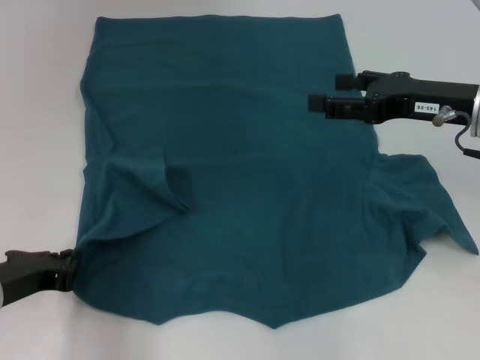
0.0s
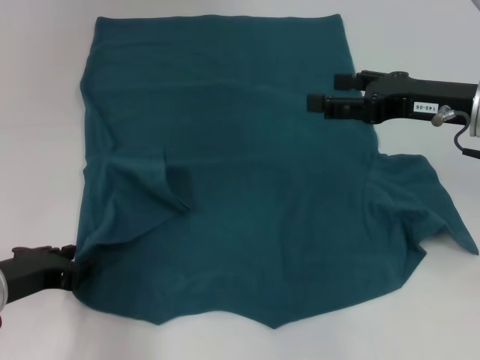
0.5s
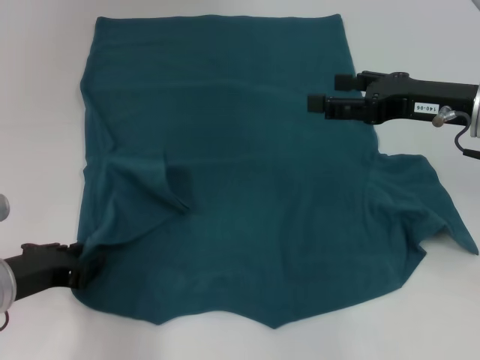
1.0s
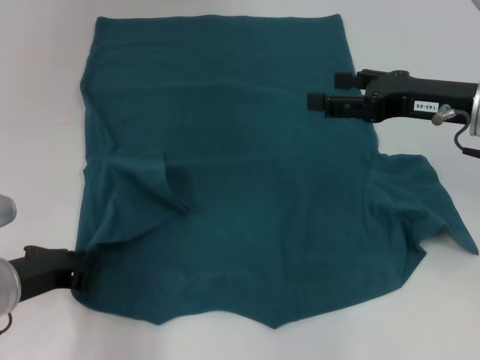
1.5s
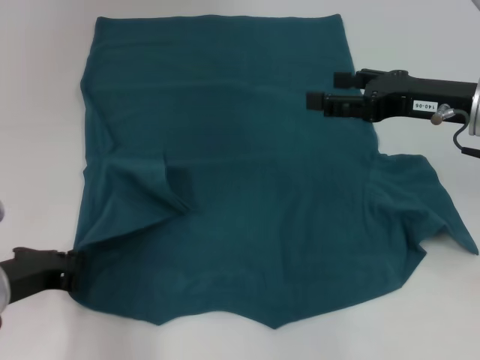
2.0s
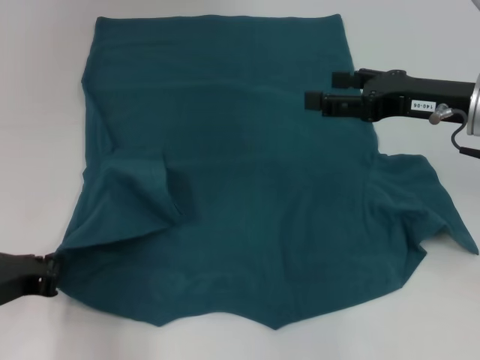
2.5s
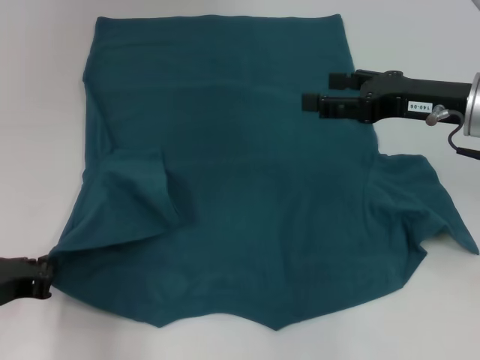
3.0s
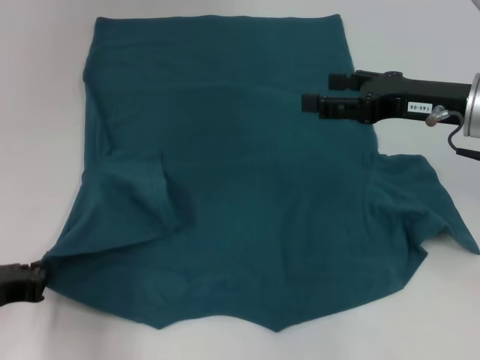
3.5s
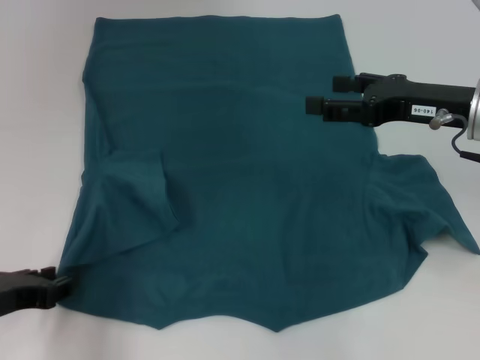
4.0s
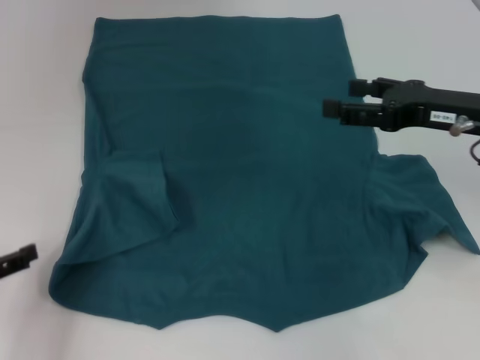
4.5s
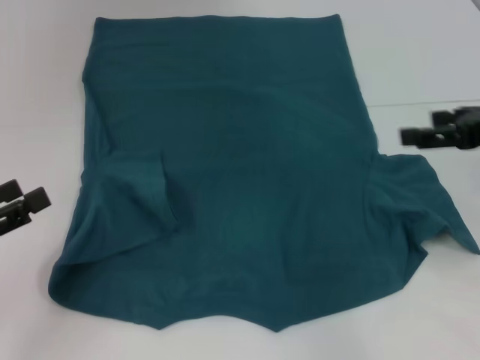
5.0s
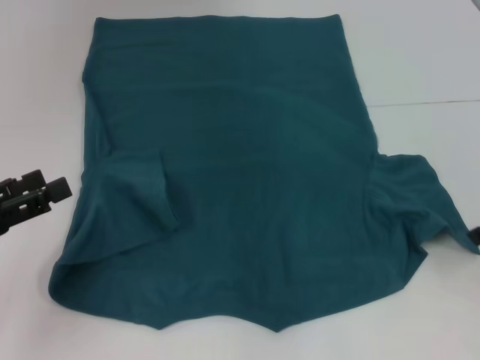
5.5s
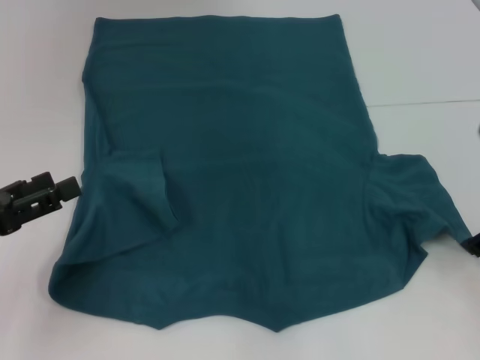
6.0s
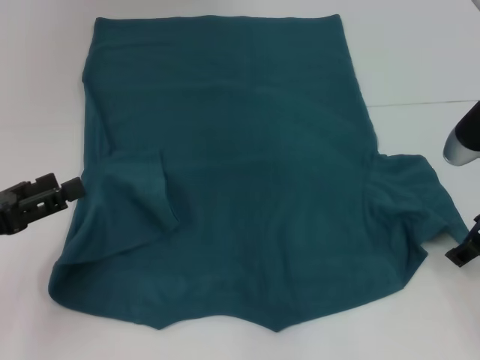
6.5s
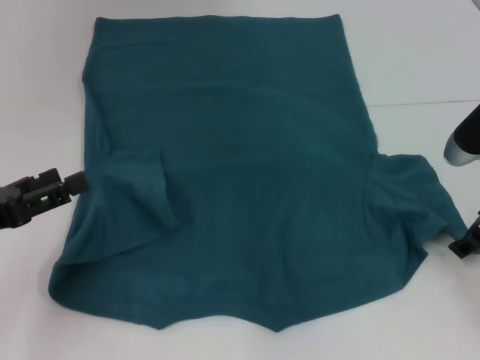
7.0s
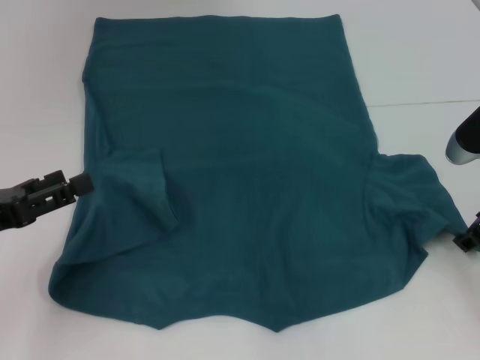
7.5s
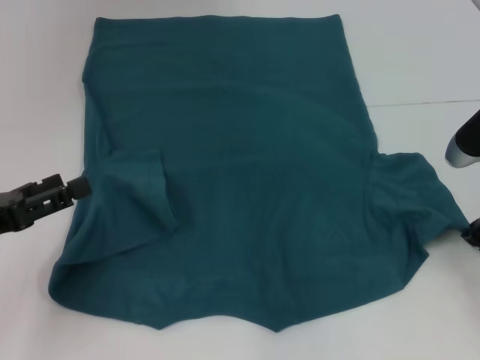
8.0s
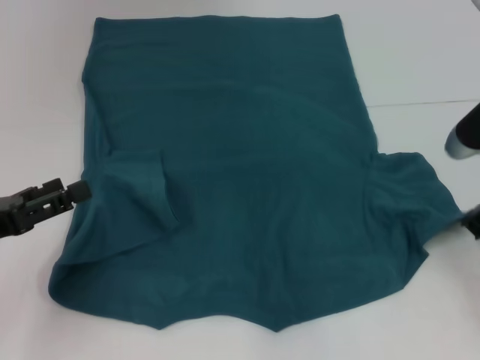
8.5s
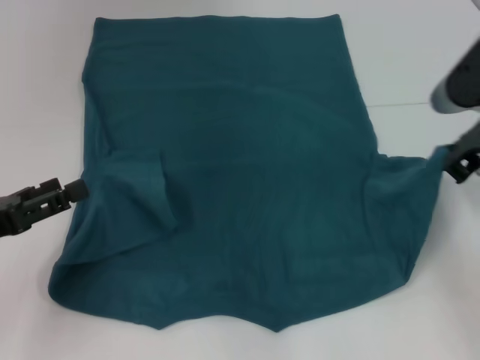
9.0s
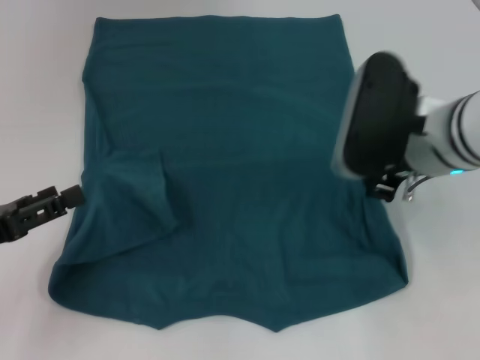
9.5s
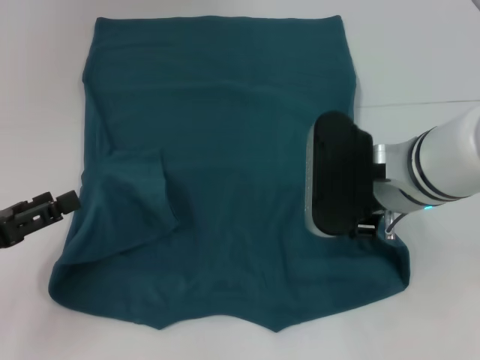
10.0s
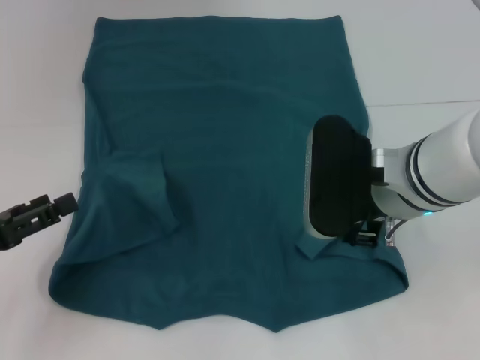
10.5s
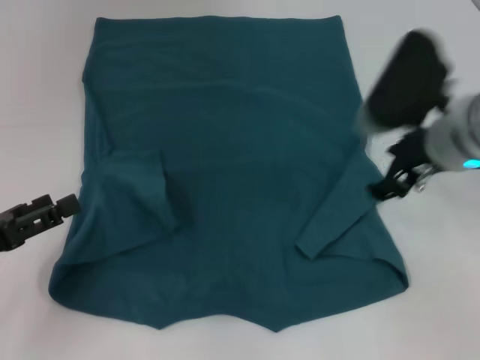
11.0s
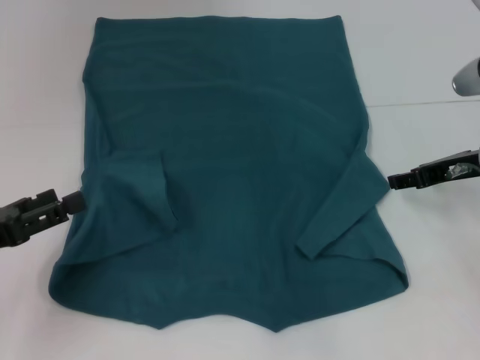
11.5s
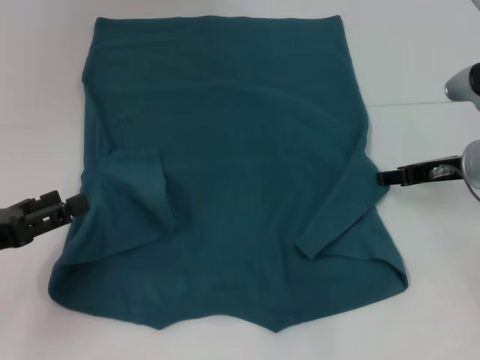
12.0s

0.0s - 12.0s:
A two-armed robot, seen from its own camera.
Step, 0.0s - 4.0s: Fold the bottom left sleeve with your left hand.
0.0s - 4.0s: The grippers stay close to where they were, moving slightly.
4.0s - 6.0s: The left gripper moves approximately 5 cm, and opens up, while the right gripper shifts by roughly 5 cm.
6.0s - 8.0s: The right gripper heads downward, covering some 5 cm, and closes.
8.0s - 10.0s: The right gripper shifts roughly 15 cm to the left.
10.0s - 12.0s: The right gripper moves to the right, downward and forward, some 15 cm, and opens its fingers.

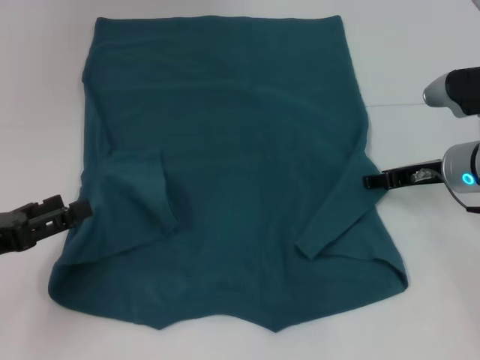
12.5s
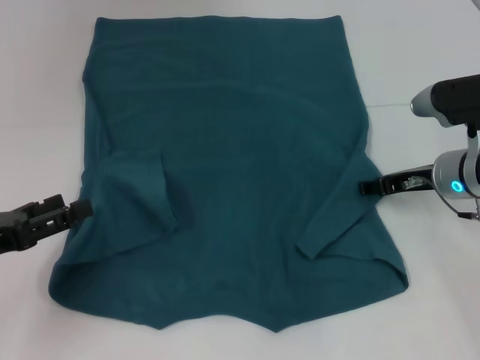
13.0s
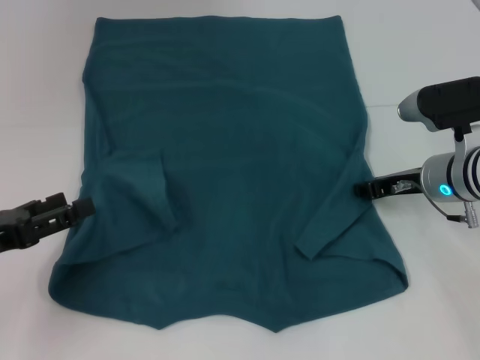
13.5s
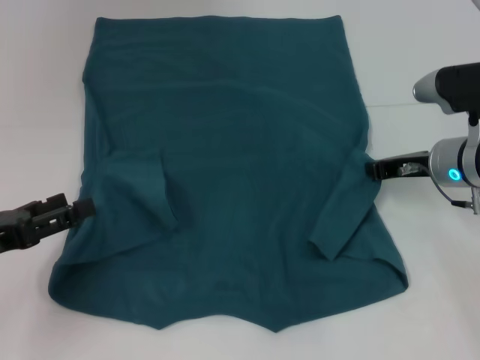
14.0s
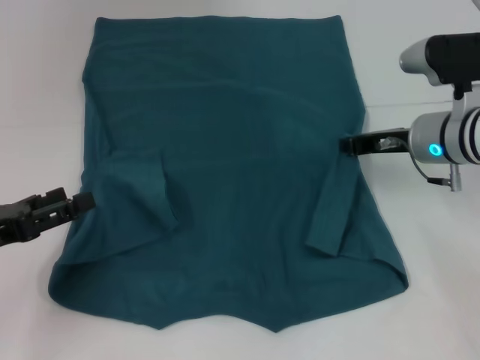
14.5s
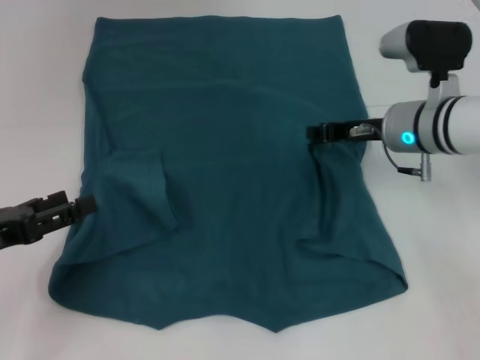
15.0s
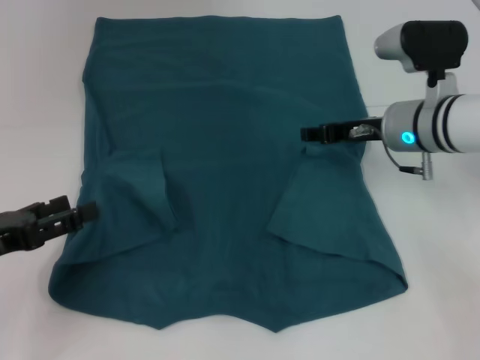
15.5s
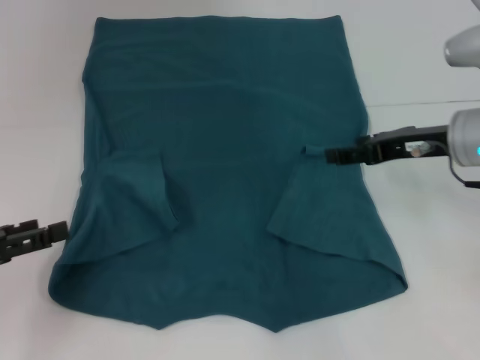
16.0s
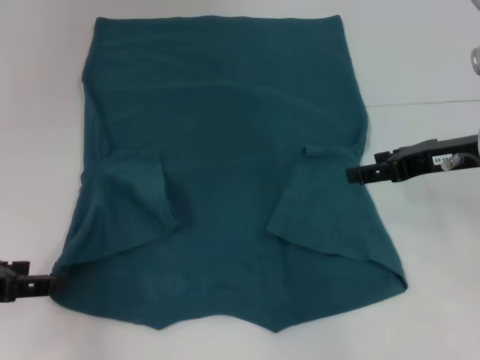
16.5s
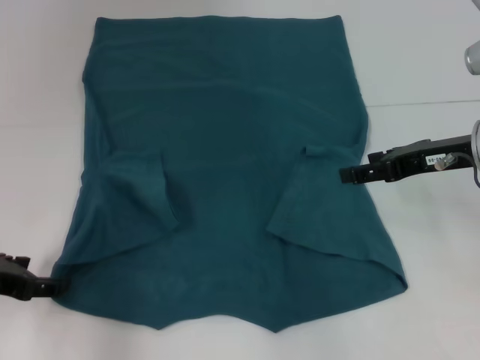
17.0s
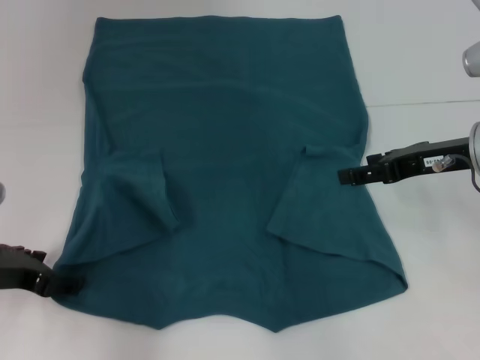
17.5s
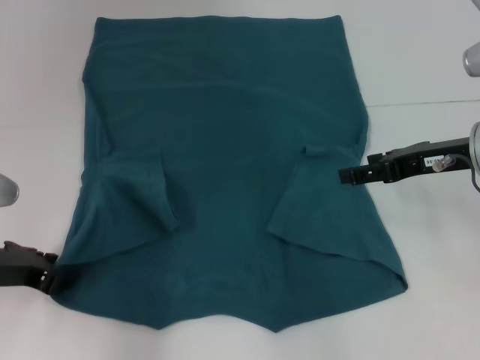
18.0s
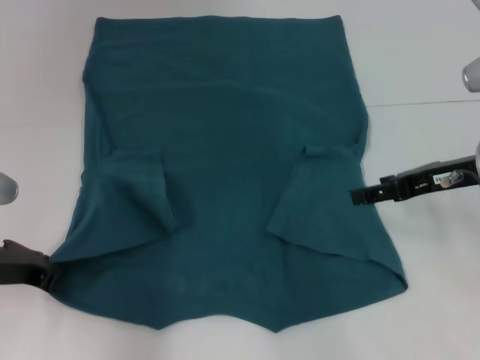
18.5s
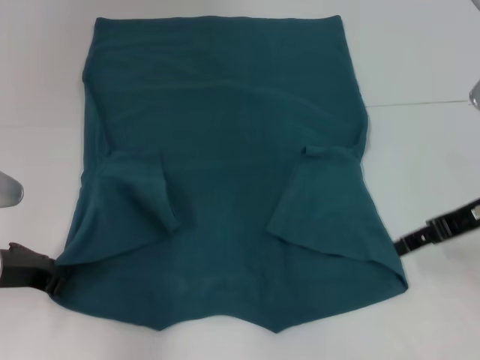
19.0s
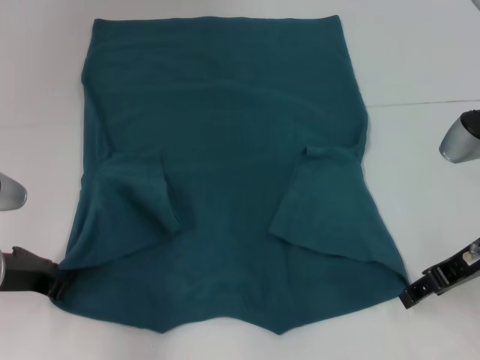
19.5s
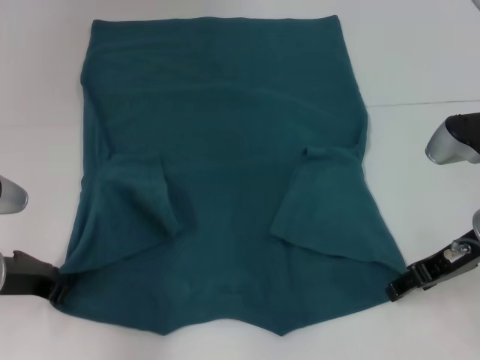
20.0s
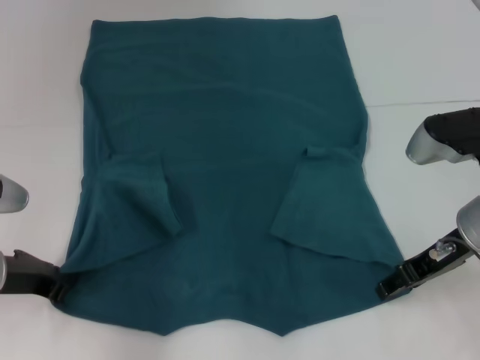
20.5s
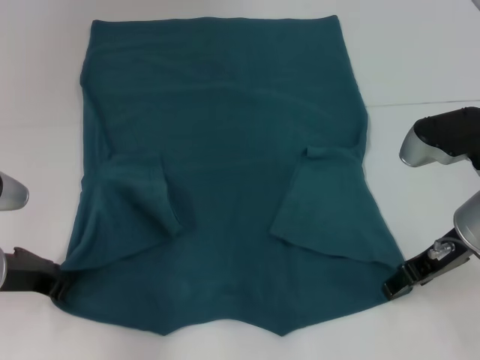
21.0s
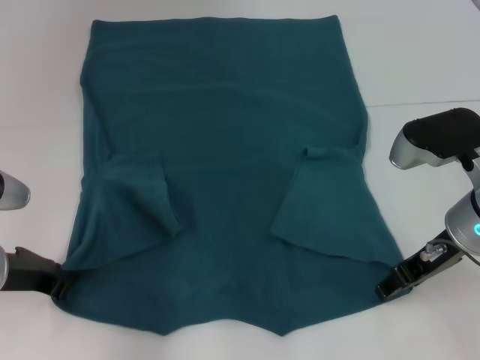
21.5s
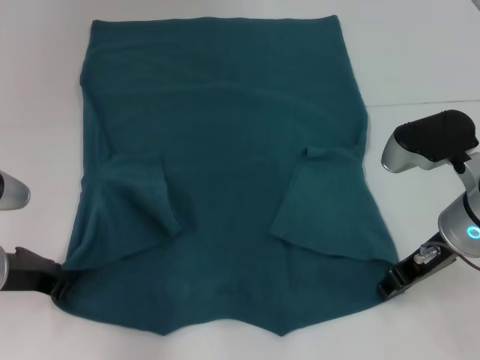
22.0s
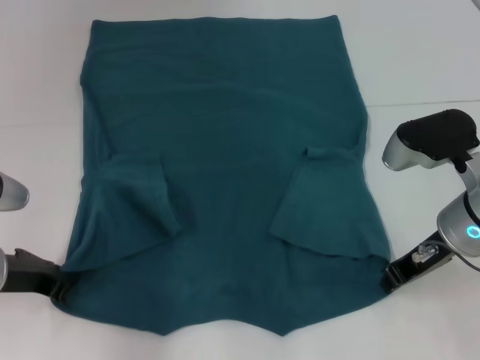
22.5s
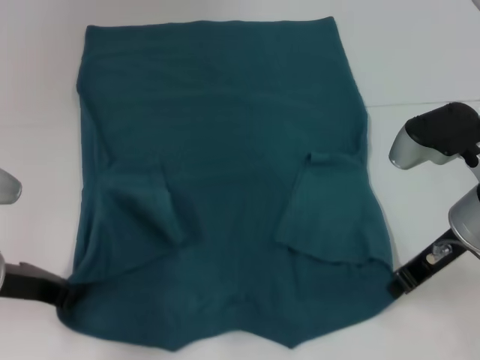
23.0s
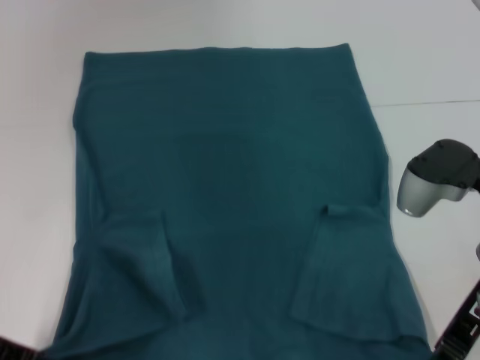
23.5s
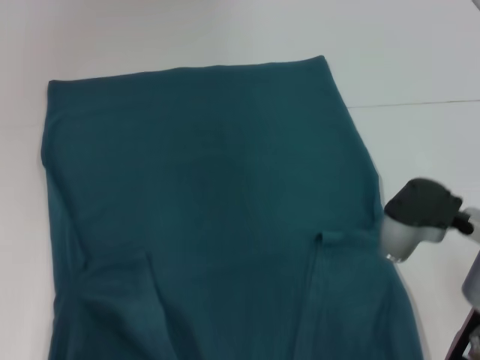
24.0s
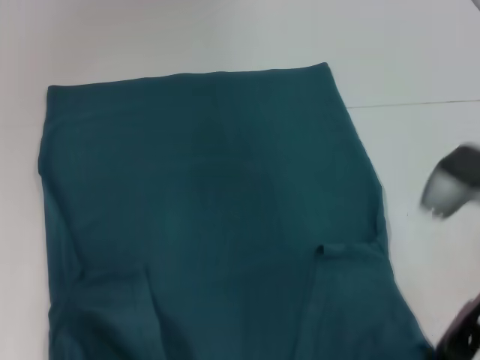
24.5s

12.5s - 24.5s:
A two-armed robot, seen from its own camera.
Step, 12.5s - 15.0s: Fold the bottom right sleeve to the right.
Step, 15.5s - 18.0s: Grab the bottom left corner with your left hand.
Step, 18.5s - 22.5s: Grab the bottom right corner with your right hand.
12.5s - 14.5s: The right gripper closes its fingers.
14.5s - 16.5s: The right gripper is displaced backward by roughly 5 cm, and opens its fingers.
16.5s - 18.5s: The left gripper travels to the right and forward by roughly 5 cm, and closes its fingers.
20.5s - 22.5s: The right gripper closes its fingers.
22.5s - 24.5s: The two grippers go some 5 cm backward.

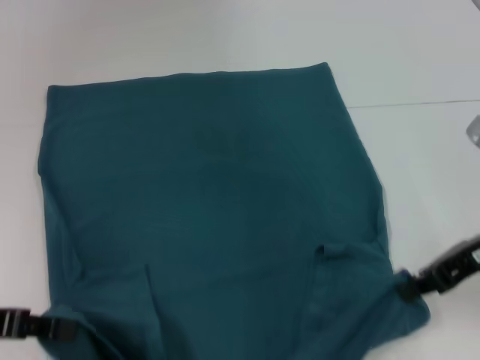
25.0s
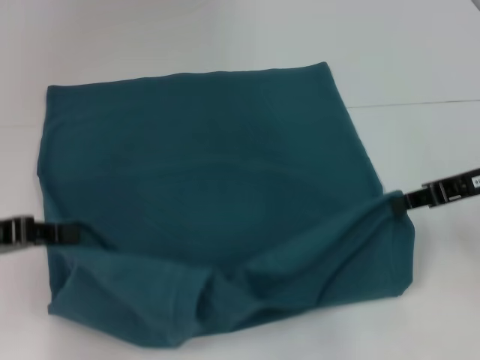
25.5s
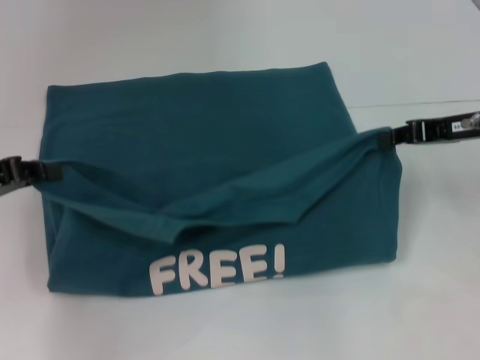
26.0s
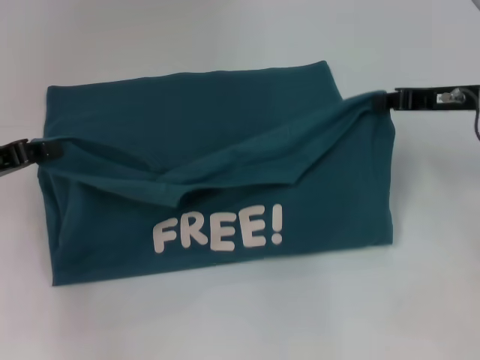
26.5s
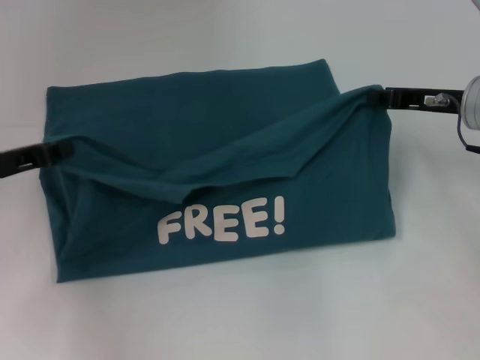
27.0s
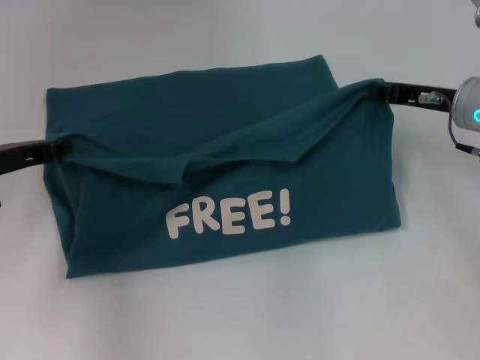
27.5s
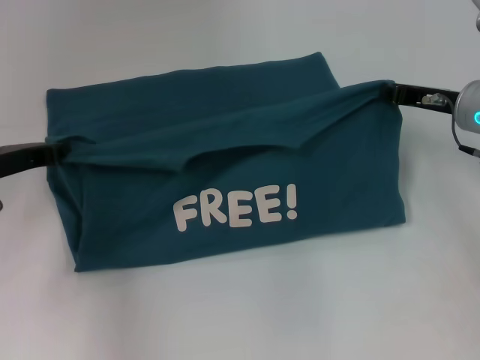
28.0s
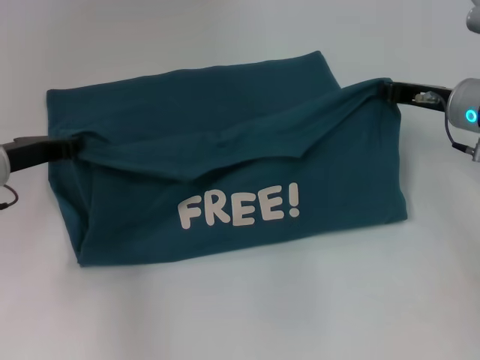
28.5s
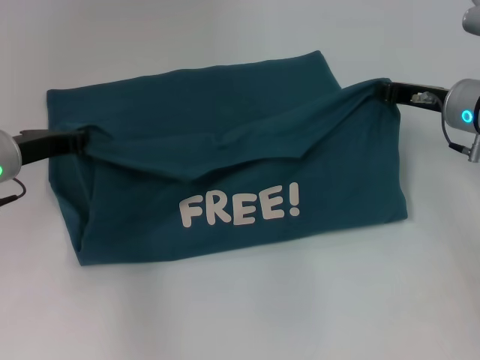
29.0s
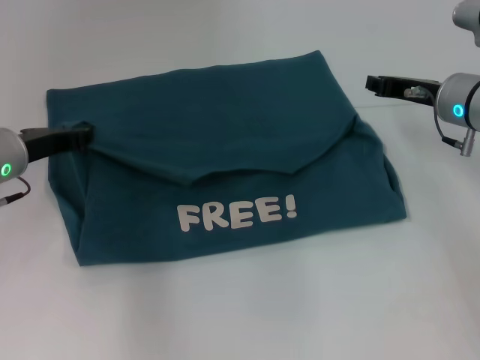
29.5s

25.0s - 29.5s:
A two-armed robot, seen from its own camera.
25.0s - 27.0s: The grippers both shift forward by about 10 cm.
27.0s - 29.5s: The left gripper ends up approximately 5 cm from where it was.
